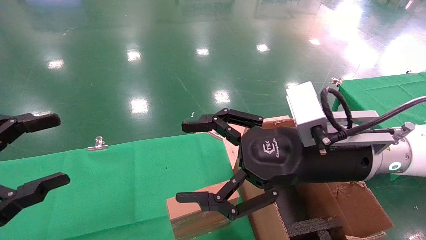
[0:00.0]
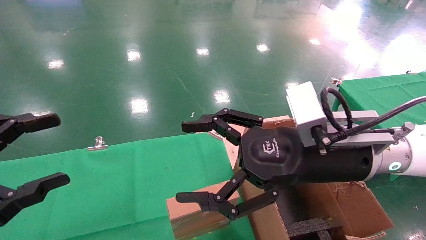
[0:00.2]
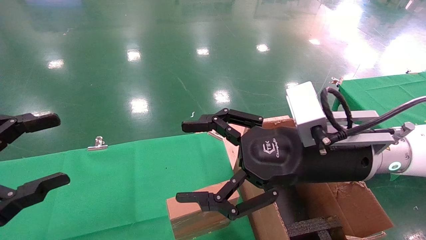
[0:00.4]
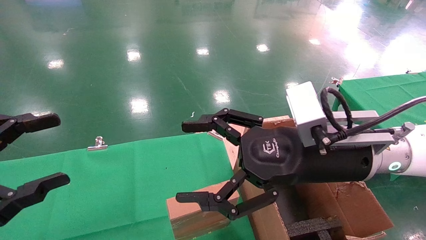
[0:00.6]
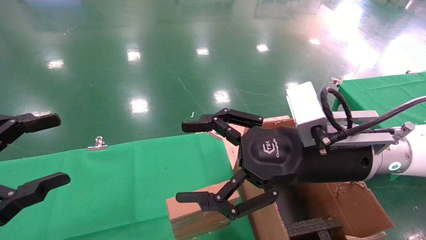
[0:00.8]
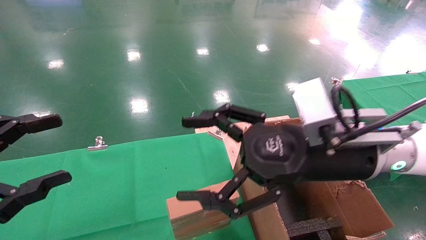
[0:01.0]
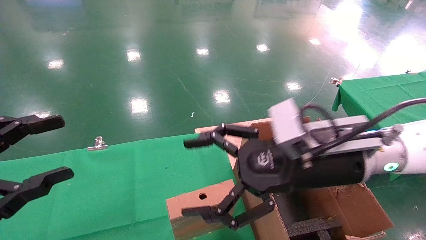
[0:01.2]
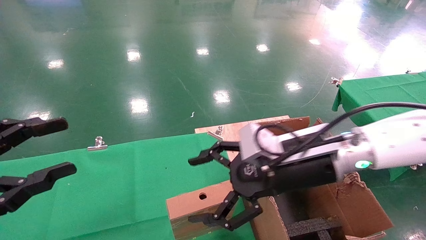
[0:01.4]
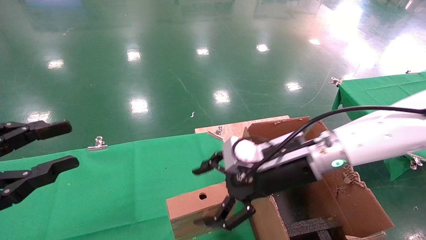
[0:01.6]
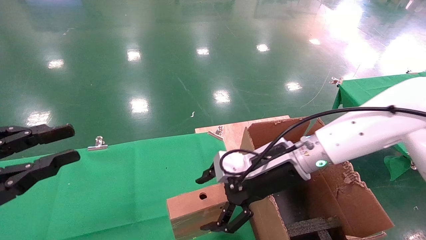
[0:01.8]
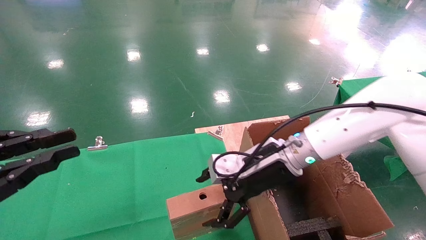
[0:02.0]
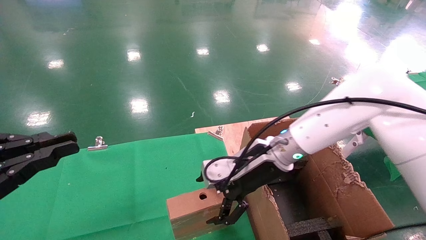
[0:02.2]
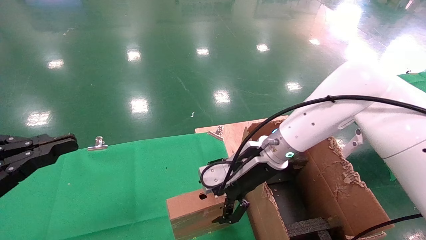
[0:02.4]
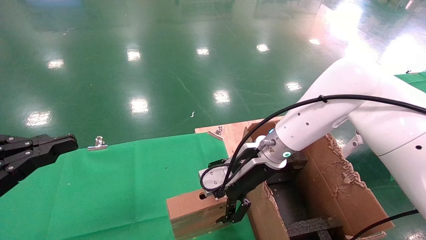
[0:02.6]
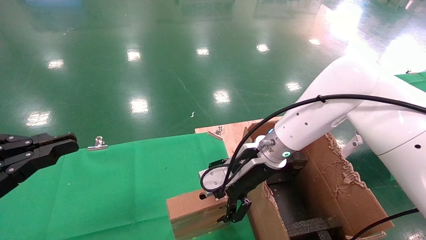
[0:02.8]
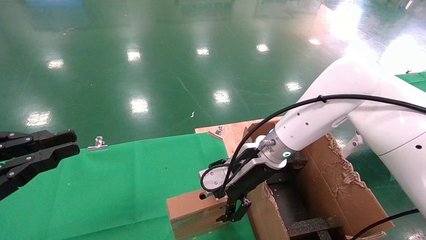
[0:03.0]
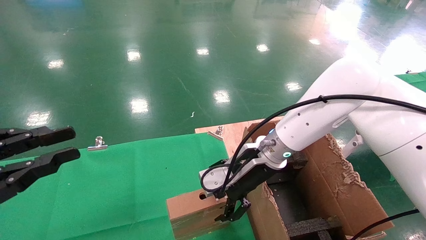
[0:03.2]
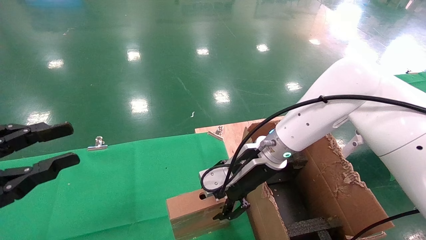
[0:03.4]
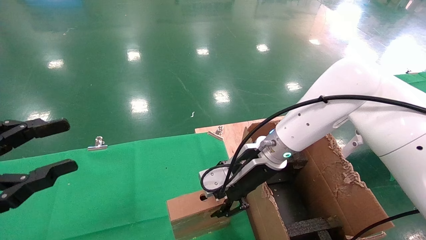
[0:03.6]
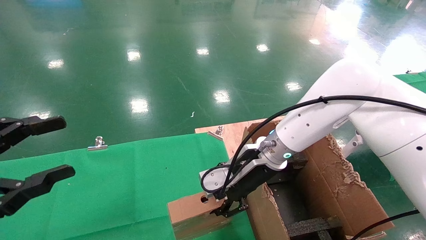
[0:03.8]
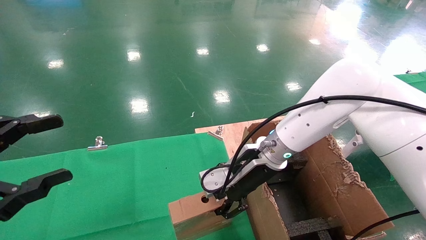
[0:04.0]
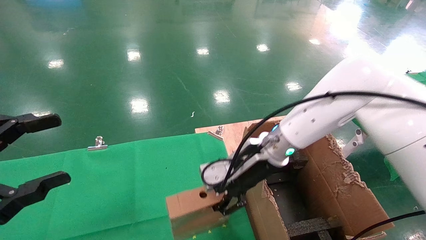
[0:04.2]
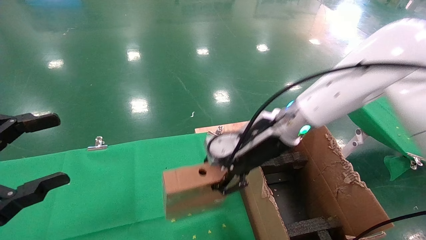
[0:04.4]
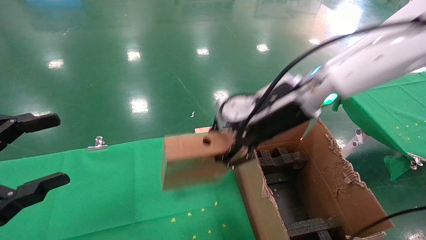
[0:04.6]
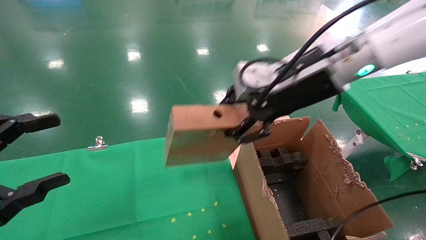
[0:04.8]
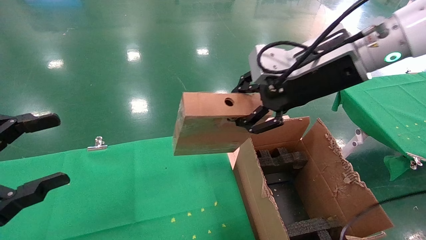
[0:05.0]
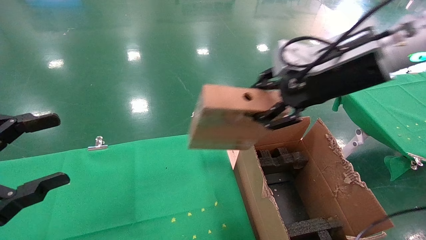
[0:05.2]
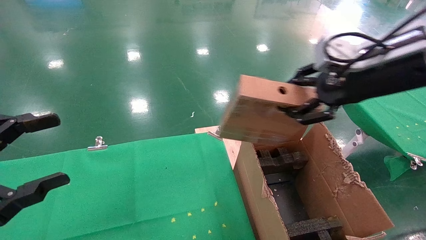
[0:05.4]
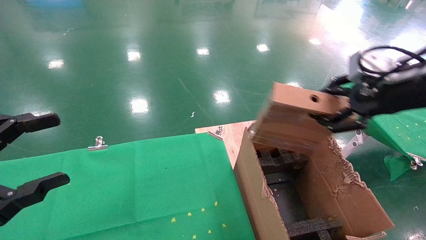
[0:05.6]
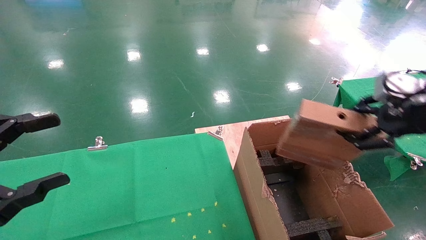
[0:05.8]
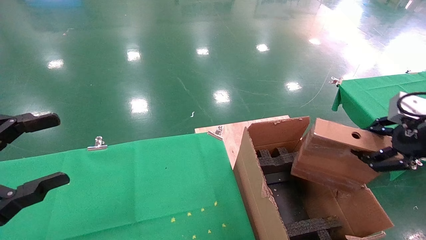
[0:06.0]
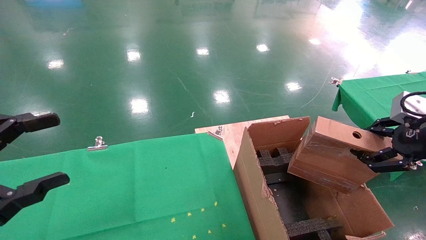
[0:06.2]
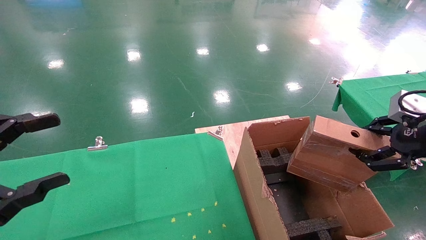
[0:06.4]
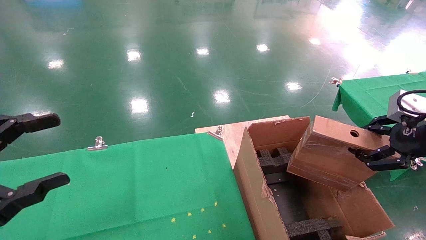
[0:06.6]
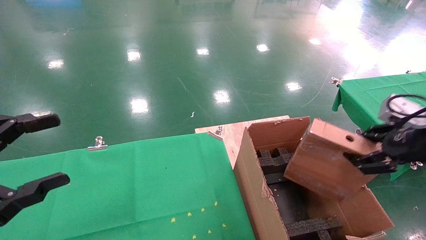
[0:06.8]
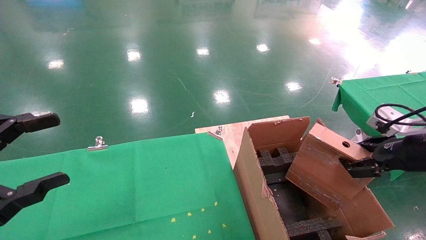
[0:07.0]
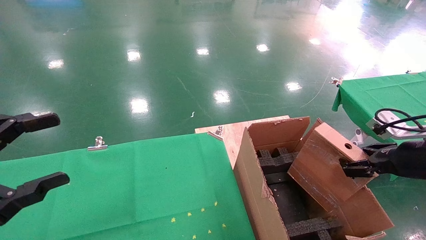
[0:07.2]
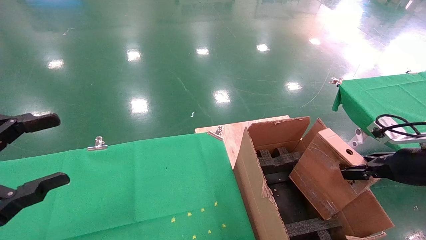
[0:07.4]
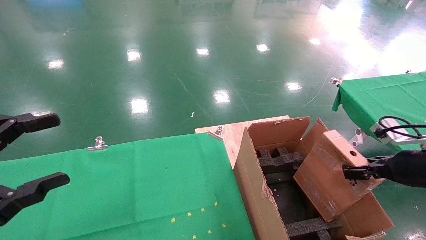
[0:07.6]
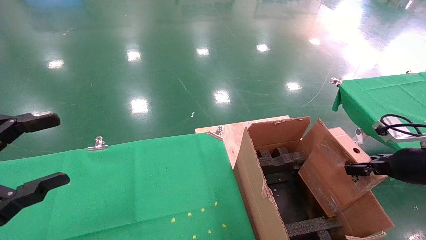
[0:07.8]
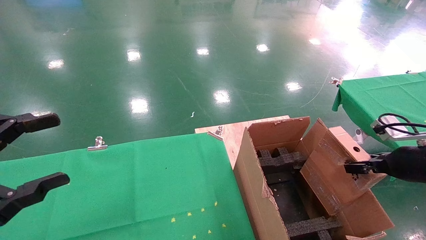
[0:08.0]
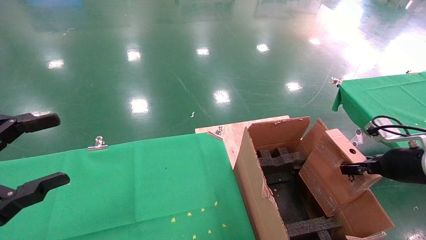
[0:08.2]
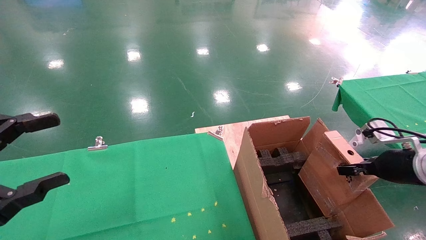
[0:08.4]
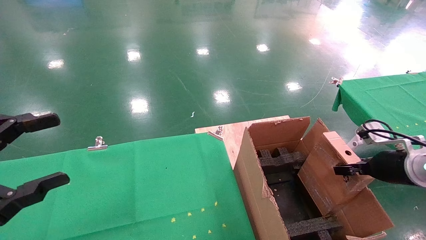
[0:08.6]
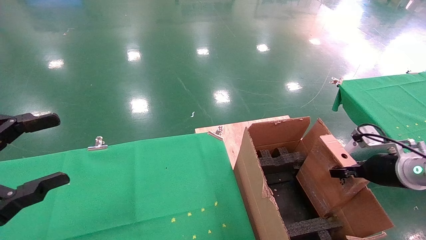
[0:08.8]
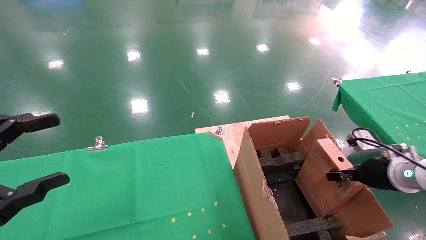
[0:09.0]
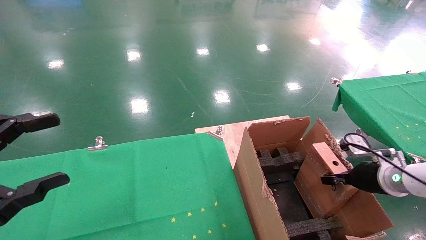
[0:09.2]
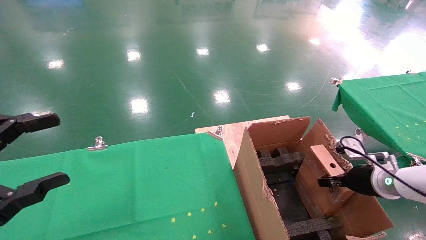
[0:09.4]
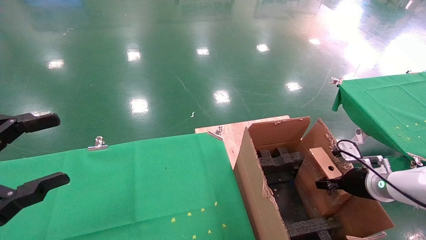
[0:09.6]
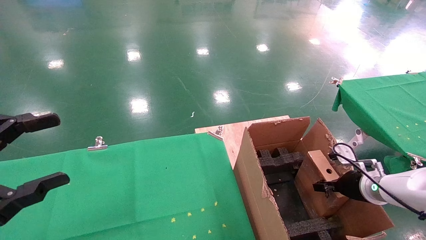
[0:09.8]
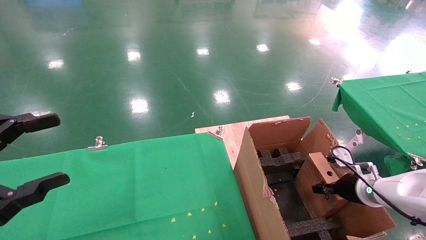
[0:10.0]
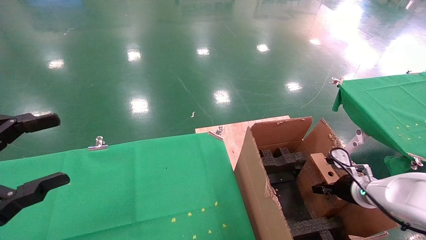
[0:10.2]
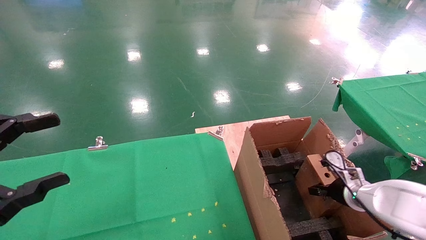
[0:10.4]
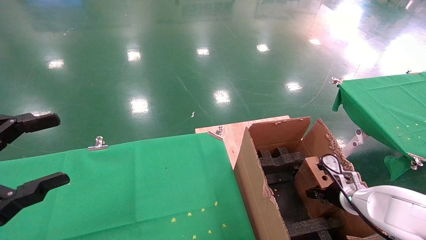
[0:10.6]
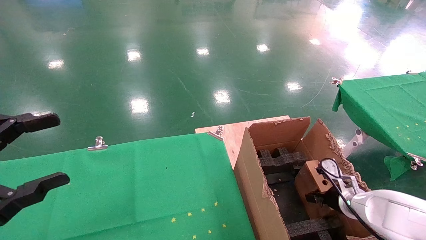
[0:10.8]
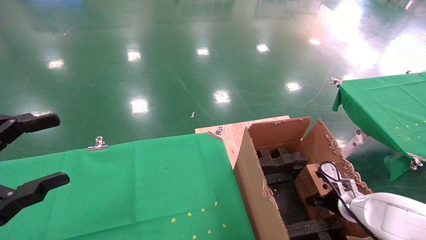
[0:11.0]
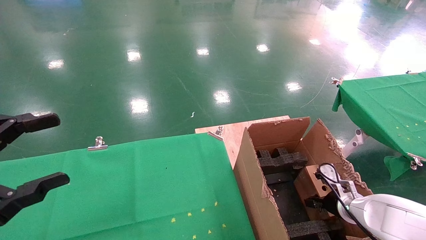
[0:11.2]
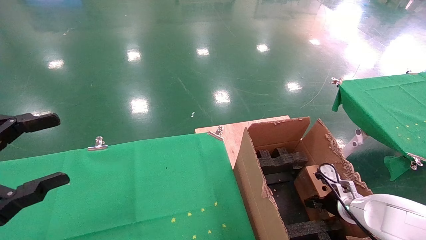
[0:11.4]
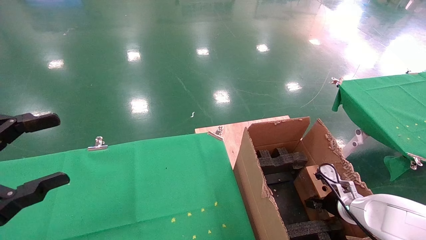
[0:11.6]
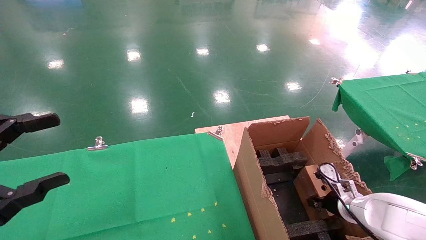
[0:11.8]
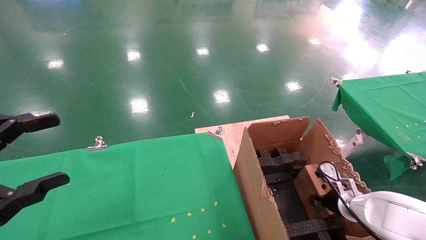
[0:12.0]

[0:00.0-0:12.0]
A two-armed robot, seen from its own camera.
Task of the whole recording: using a robotic arm to pick up a cardboard box and palace it the carton.
Step, 0:01.2 to 0:03.8: Pick up the mouse and the power cord paper box.
0:00.0 to 0:01.6: The left gripper closes its fingers. The right gripper moves forward, approximately 5 cm.
0:01.6 to 0:03.0: The left gripper closes; the right gripper shifts approximately 5 cm forward.
0:03.0 to 0:04.4: The right gripper shifts about 5 cm upward, and closes up, while the left gripper opens its fingers.
0:04.4 to 0:06.0: The right gripper shifts some 30 cm to the right and backward.
0:06.0 to 0:07.6: The right gripper goes some 10 cm downward.
0:07.6 to 0:09.0: The right gripper is displaced forward and downward by about 10 cm.
0:09.0 to 0:10.4: The right gripper goes about 10 cm downward.
0:10.4 to 0:12.0: The grippers stay close to where they were, moving slightly.

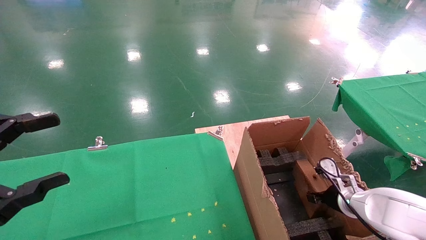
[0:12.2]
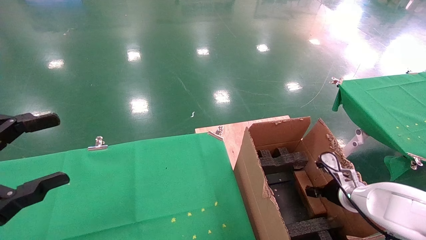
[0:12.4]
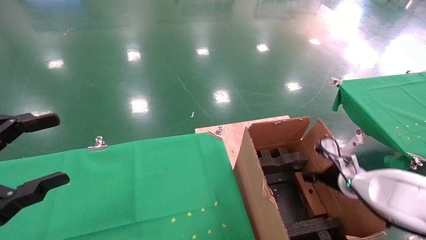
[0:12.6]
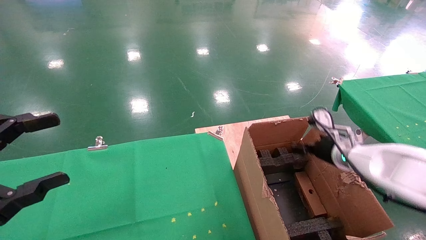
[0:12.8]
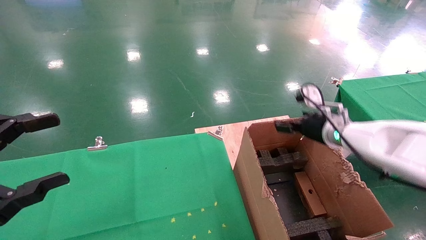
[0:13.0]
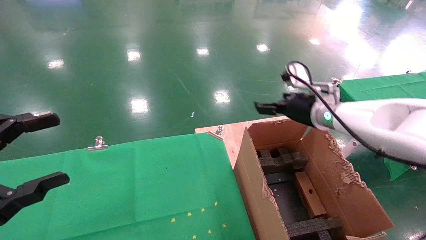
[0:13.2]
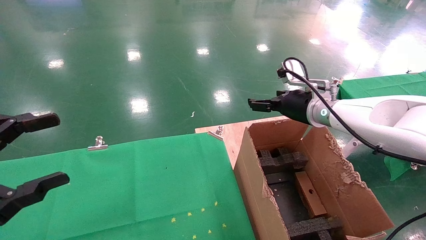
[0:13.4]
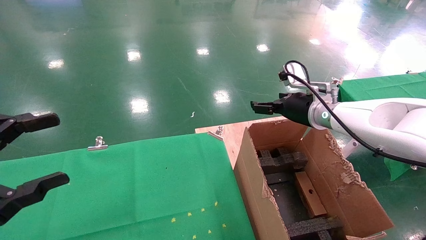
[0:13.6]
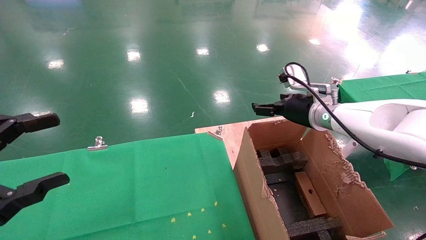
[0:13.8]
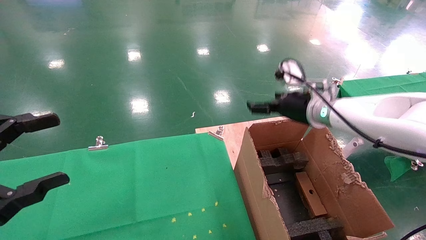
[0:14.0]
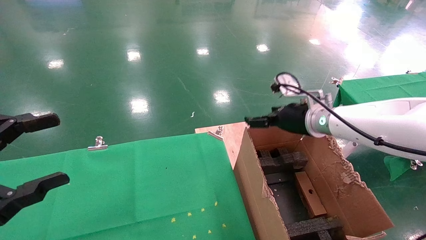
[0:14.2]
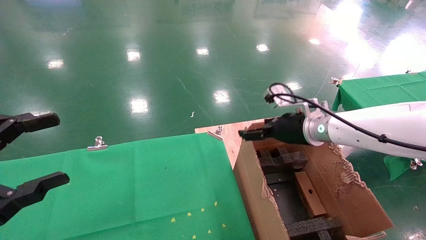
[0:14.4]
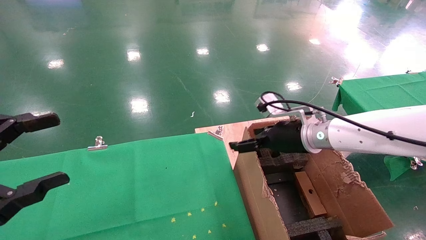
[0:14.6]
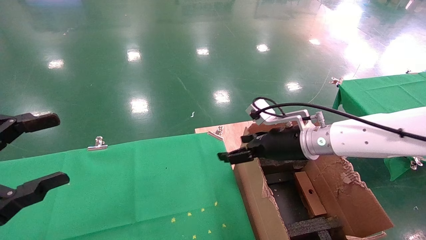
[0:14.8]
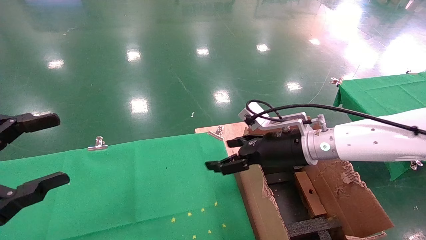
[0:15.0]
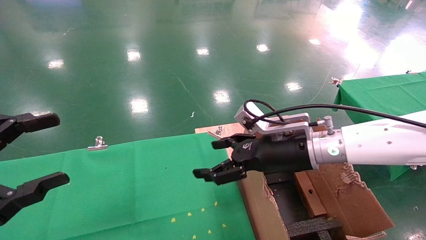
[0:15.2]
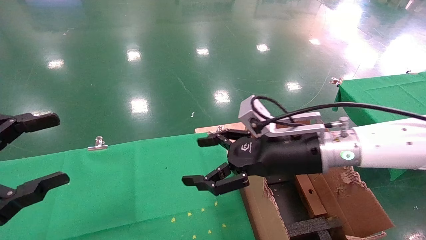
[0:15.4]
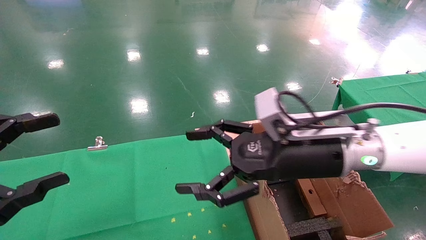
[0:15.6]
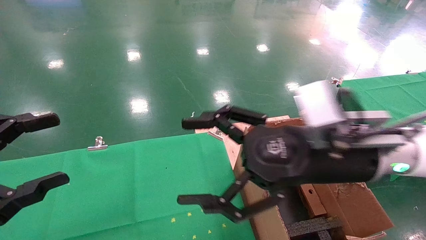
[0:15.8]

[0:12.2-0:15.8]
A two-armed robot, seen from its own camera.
Task of the whole recording: using a robotic arm to pick up a cardboard box and palace it the carton.
0:12.2 to 0:14.0: The right gripper is displaced upward and to the left by approximately 25 cm, and opens its fingers.
0:14.0 to 0:15.8: The right gripper travels backward and to the left by roughly 20 cm.

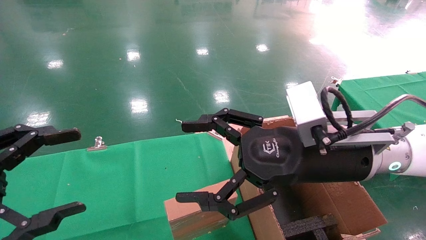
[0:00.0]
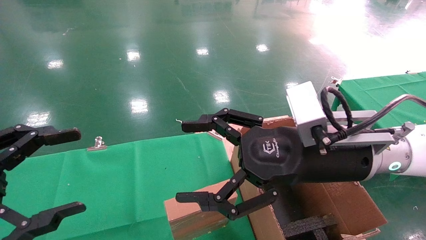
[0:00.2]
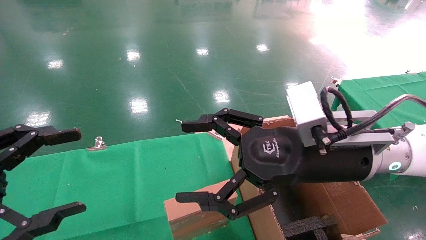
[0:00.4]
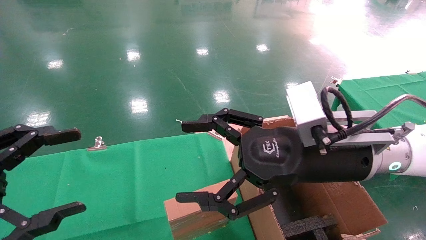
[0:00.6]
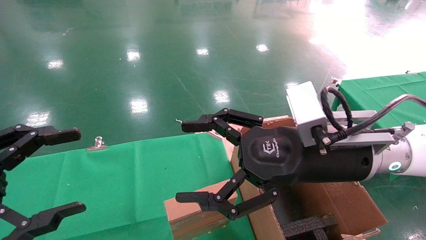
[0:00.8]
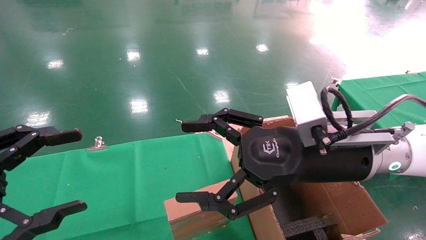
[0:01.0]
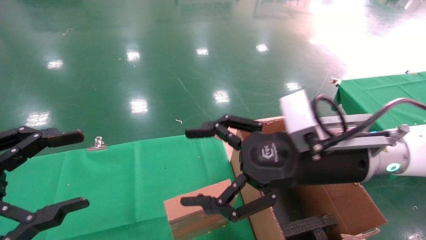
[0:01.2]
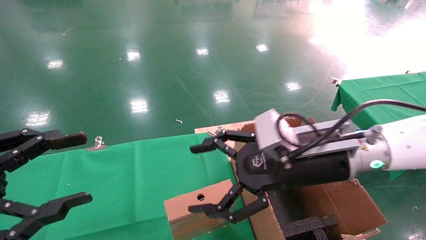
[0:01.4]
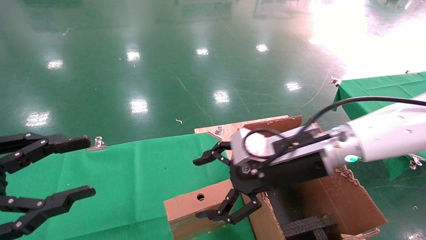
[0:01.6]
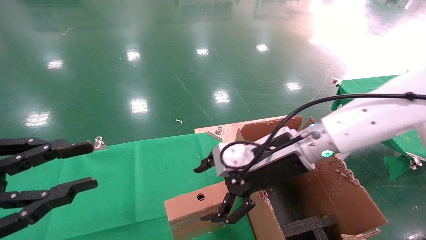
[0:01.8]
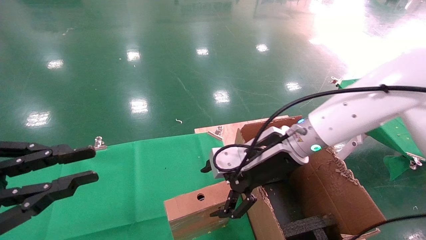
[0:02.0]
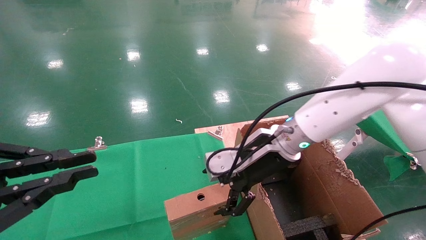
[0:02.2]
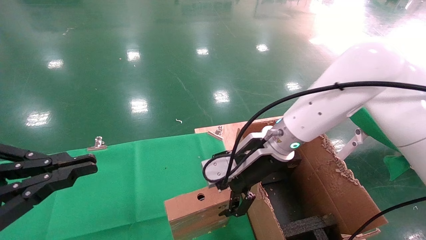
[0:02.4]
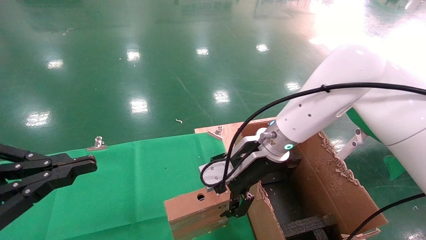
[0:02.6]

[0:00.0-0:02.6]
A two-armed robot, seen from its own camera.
Task of the whole recording: using a robotic arm to pick up a cardboard box and palace it the carton.
0:00.0 to 0:01.2: The grippers stay close to where they were, moving slightly.
0:01.2 to 0:02.6: The left gripper closes, while the right gripper shifts roughly 10 cm forward and to the left.
